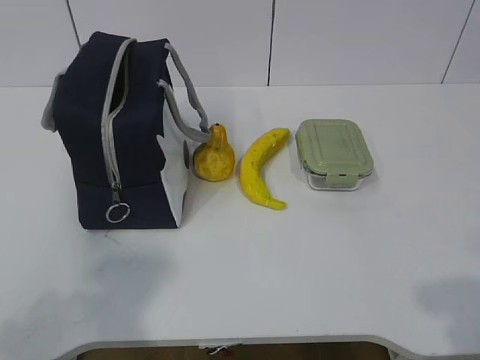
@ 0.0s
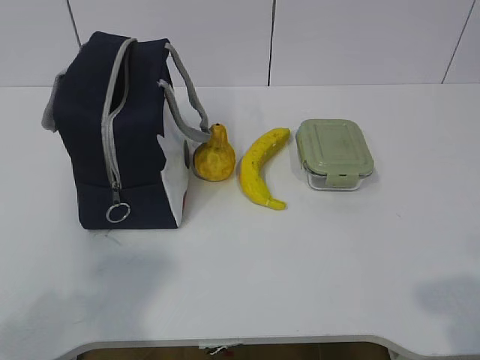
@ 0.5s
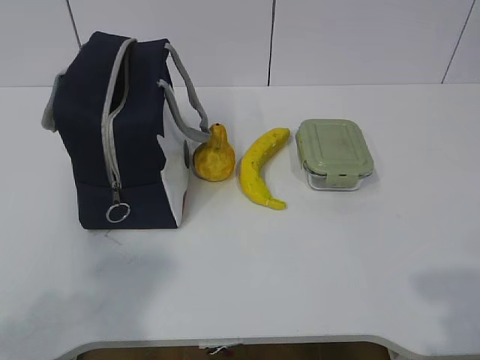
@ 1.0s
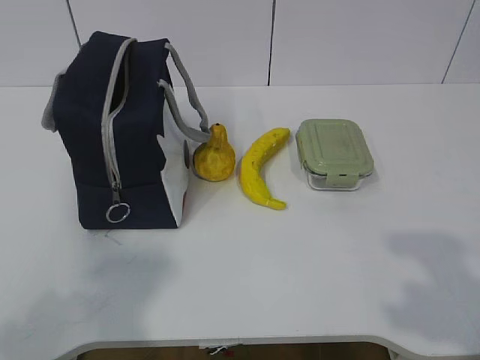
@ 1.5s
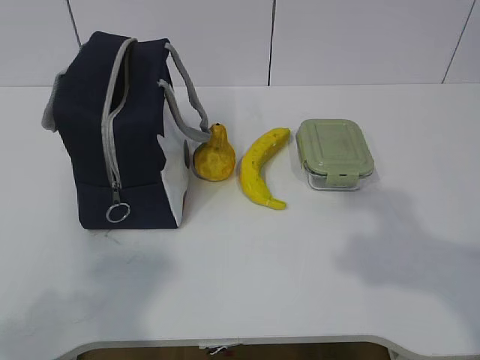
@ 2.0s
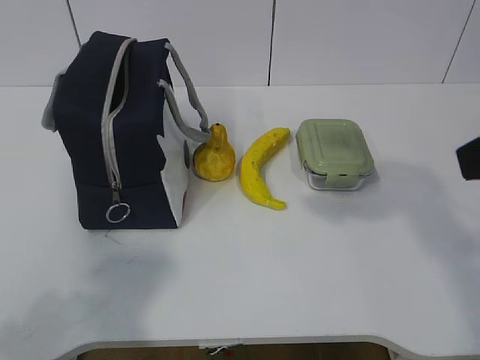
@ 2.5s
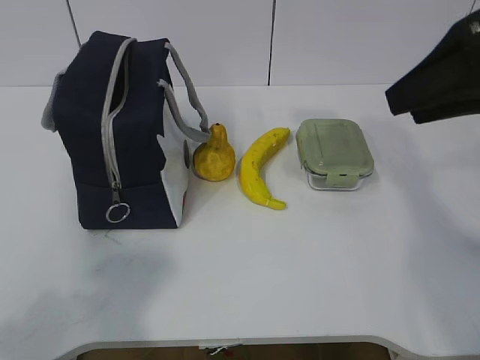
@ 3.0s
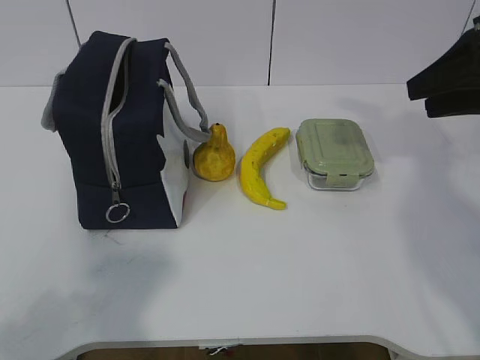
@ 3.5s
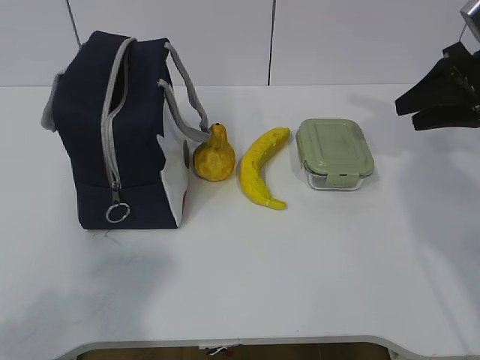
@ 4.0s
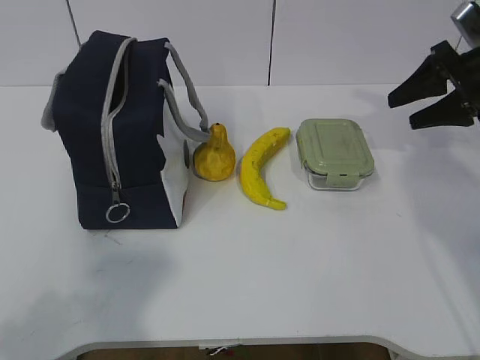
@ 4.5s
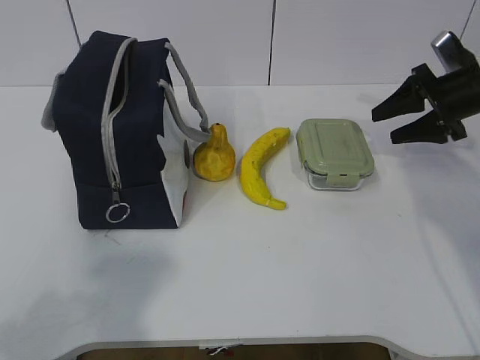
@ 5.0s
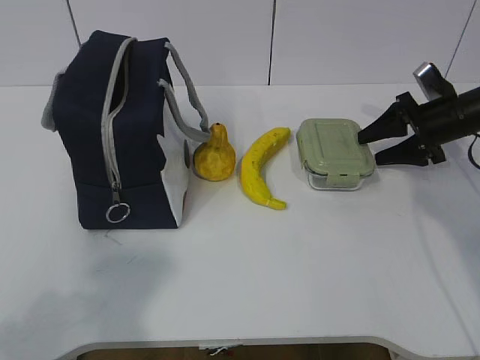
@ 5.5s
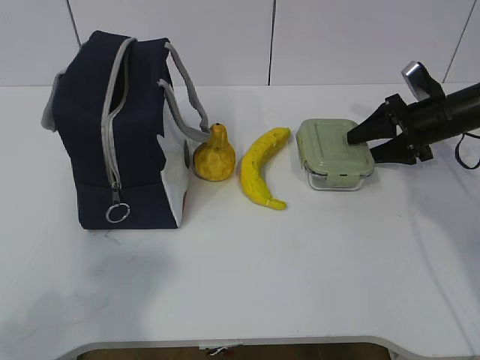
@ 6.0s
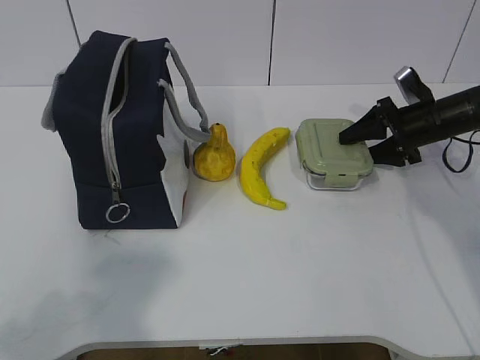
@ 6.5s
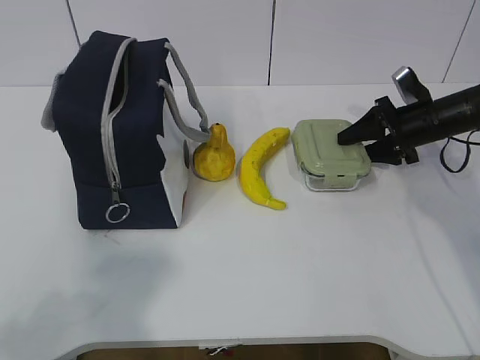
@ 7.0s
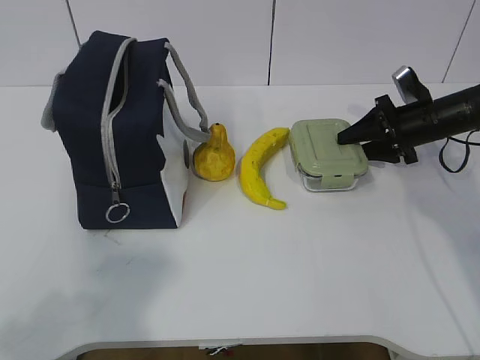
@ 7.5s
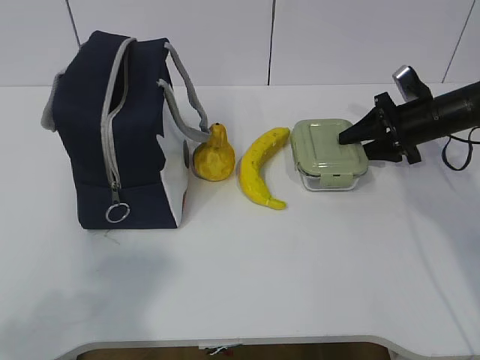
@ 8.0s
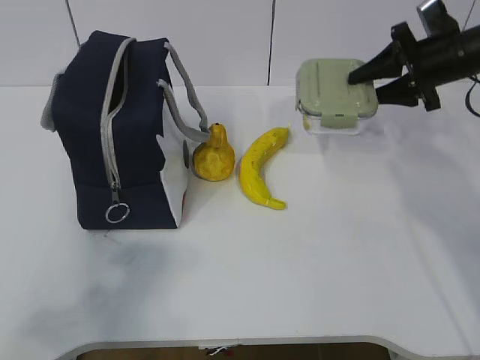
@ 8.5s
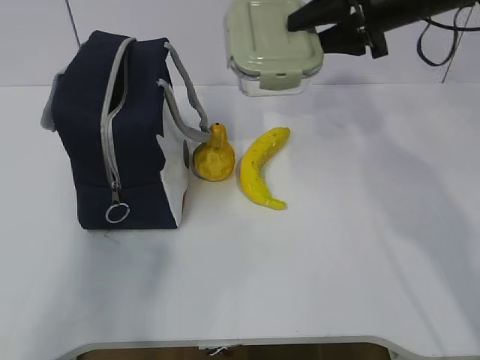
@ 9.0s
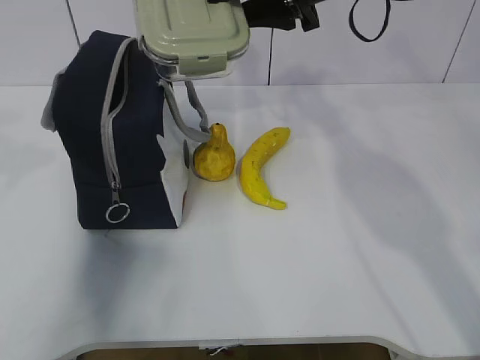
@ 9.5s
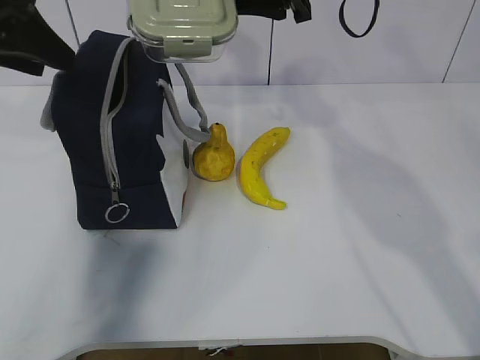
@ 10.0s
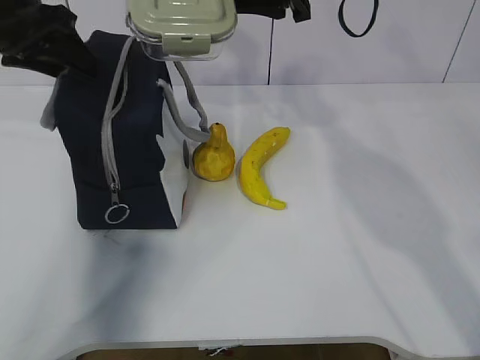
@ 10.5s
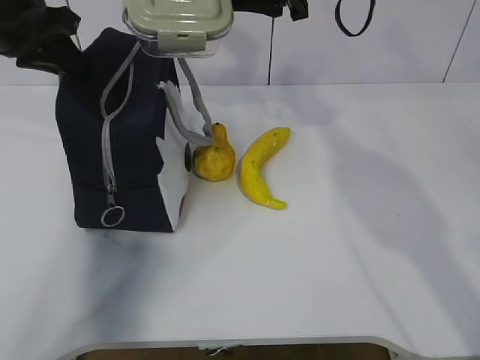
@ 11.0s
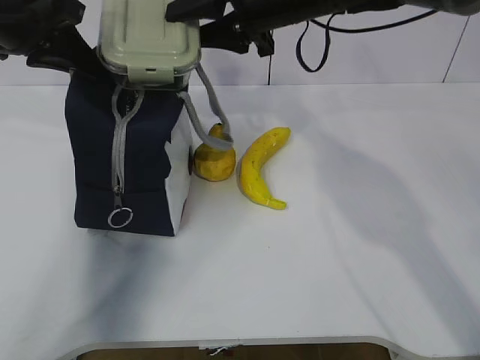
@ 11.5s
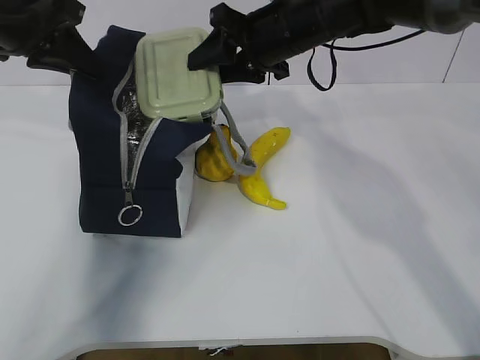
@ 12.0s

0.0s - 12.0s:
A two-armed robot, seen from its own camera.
Step, 0.0s - 6.0s: Grab the lunch box with your right hand.
Step, 7.0s - 9.5s: Grab the lunch bag with your left hand.
2.0s - 4.0s: The right gripper goes approximately 30 cm forward.
4.0s - 6.0s: The right gripper goes some 15 cm downward and forward.
6.0s - 8.0s: There are only small adjustments of the grippers.
8.0s - 10.0s: The left gripper shifts about 30 cm forward, and opens its fingers. Meanwhile the right gripper heads upward and to the left, covering some 30 cm.
10.0s - 12.0s: The right gripper travels downward by approximately 10 cm, while the left gripper is displaced forward by approximately 5 cm, and closes.

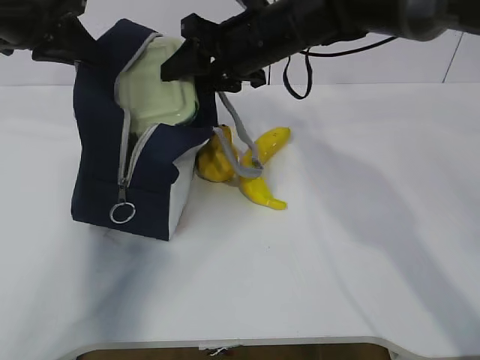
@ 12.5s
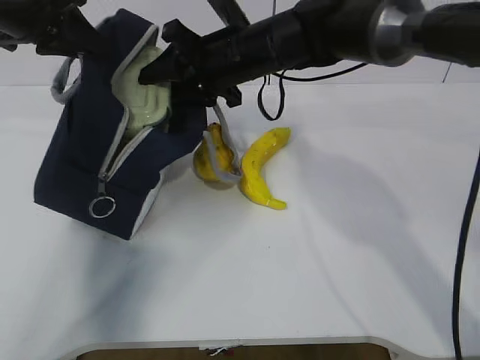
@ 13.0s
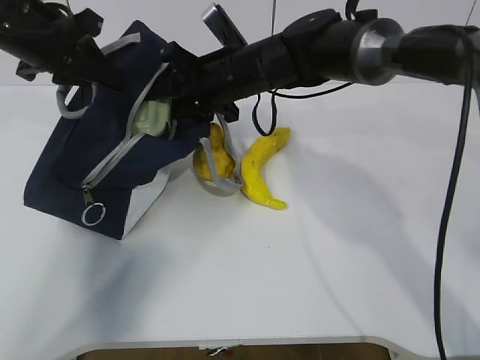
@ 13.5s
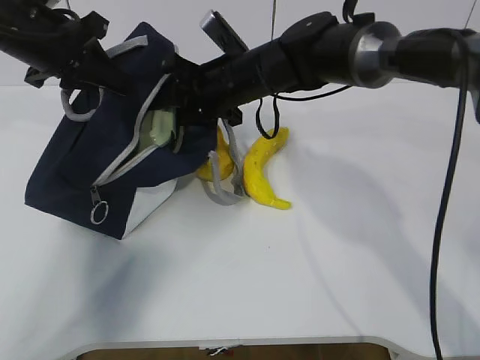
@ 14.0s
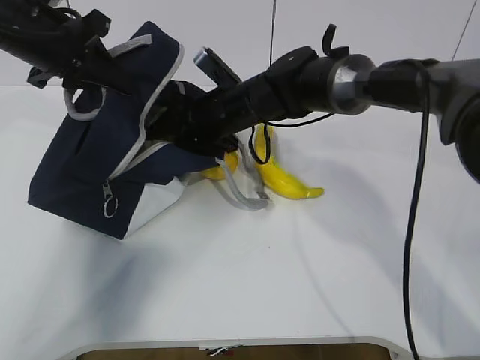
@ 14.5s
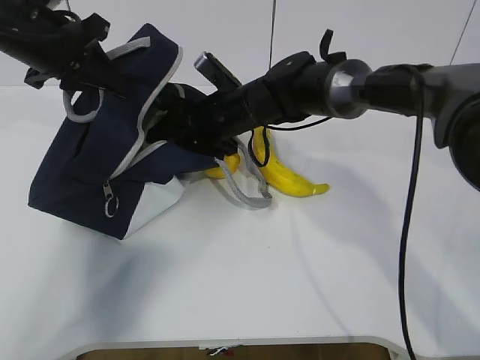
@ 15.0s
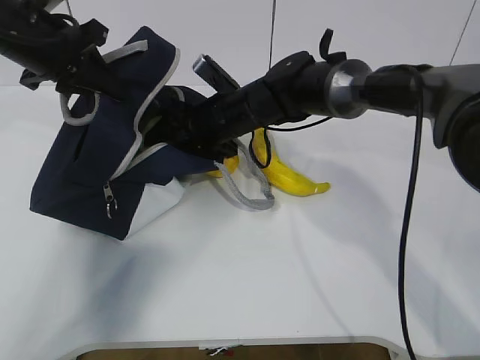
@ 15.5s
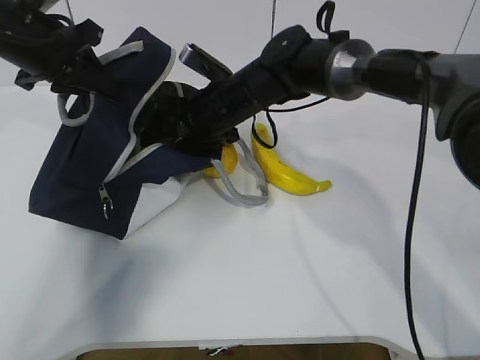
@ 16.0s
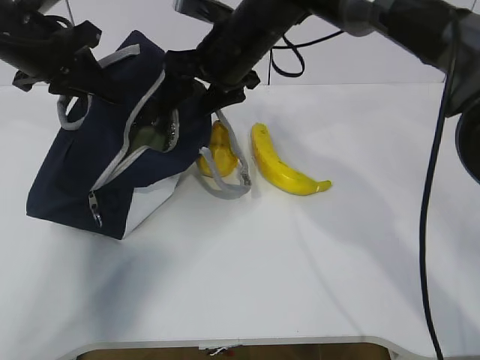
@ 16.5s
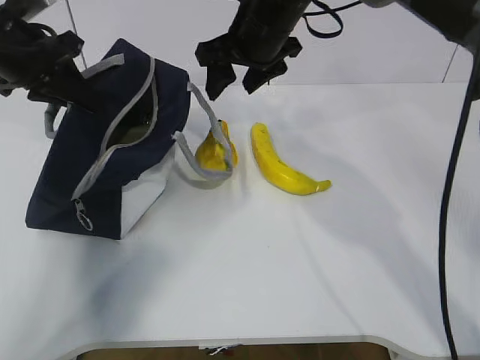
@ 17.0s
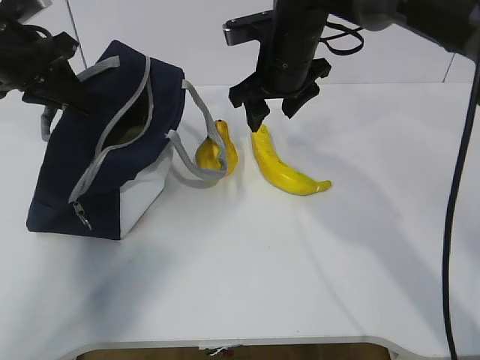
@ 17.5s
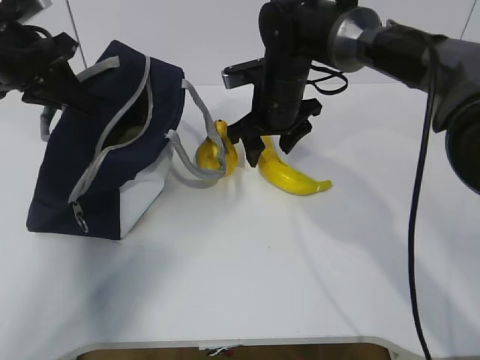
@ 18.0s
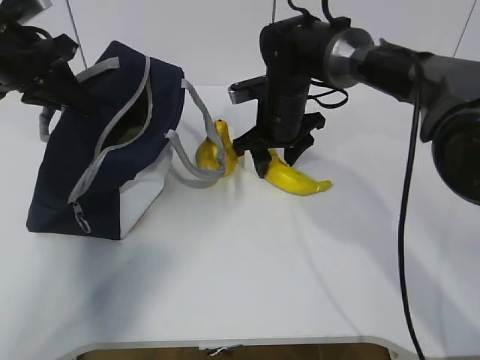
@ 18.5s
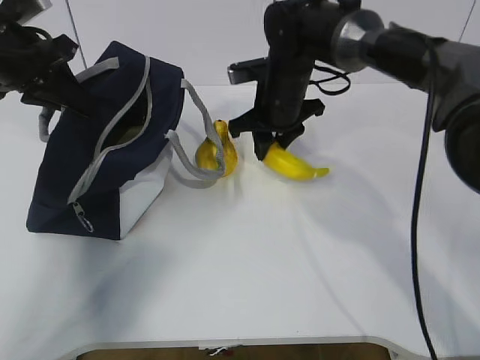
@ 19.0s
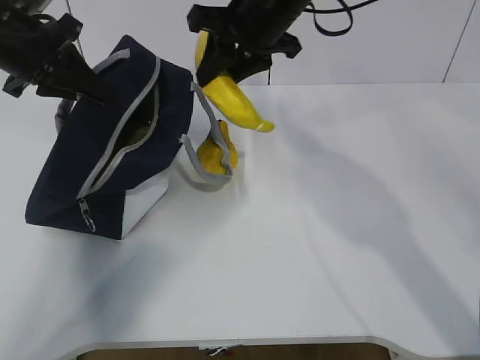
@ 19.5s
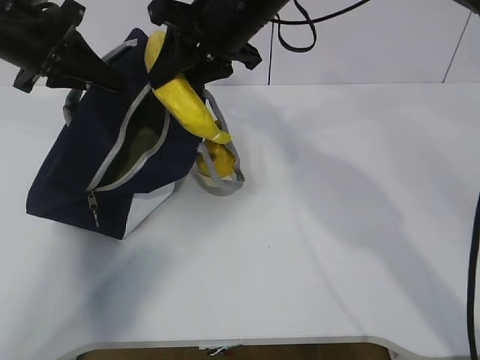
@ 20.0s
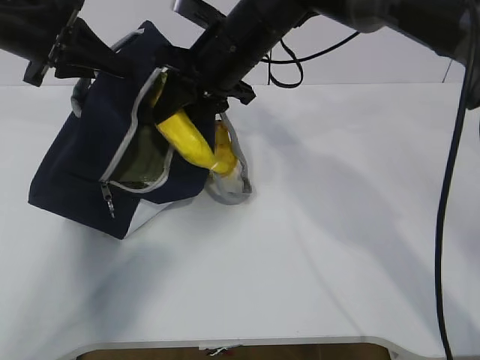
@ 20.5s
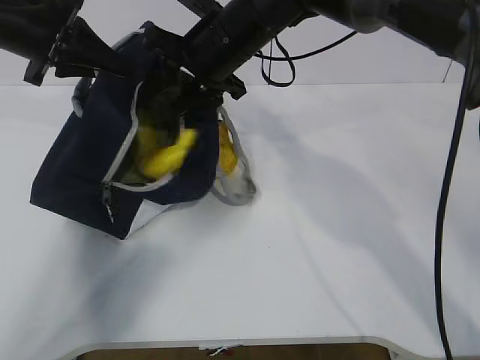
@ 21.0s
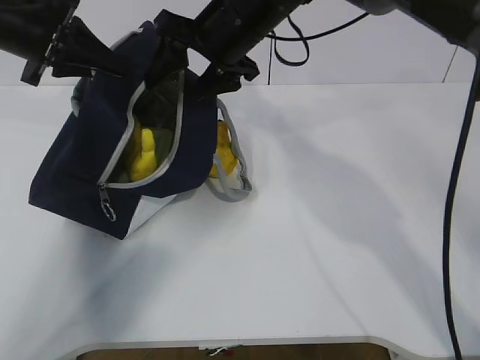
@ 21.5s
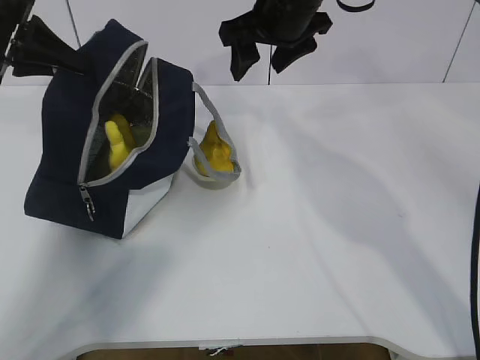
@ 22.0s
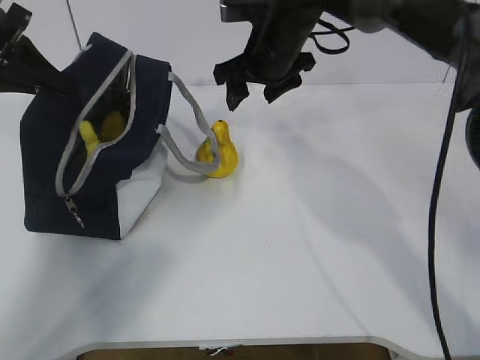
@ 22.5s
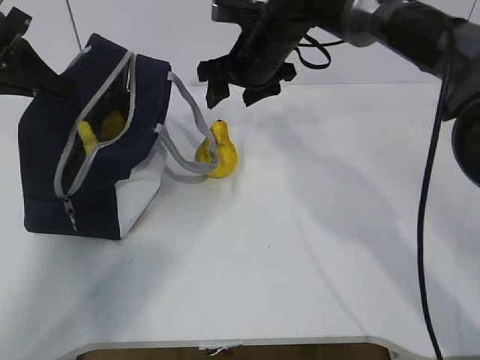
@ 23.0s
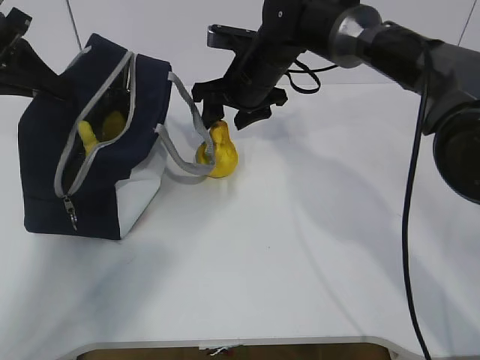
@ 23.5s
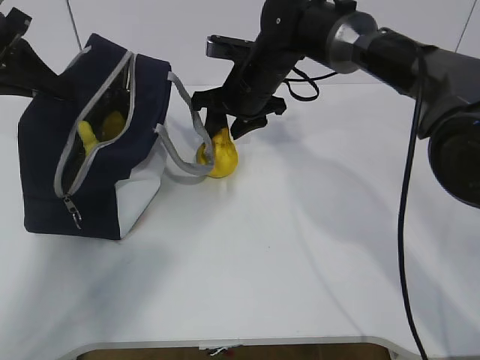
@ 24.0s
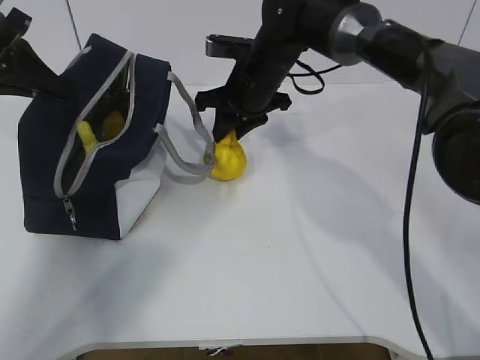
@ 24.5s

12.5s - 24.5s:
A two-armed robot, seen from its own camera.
Step, 13.5s - 15.5s: Grab the banana with your right hand.
Step, 16.0s - 17.5s: Place it into the bag with your right hand.
Step, 18.0s - 20.0s: Grab the pear with your right hand.
Step, 22.0s - 23.0s: Grab the lunch bag with your right hand.
12.5s - 14.5s: The right gripper heads downward, covering approximately 10 cm.
14.5s - 16.5s: The right gripper travels upward by about 10 cm, and opens.
16.5s - 18.5s: The right gripper shifts approximately 10 cm downward and to the right.
18.5s - 20.5s: The right gripper shifts some 10 cm upward and to the left, and closes up.
20.5s - 22.5s: The right gripper travels to the right by some 5 cm, and opens its fingers. The left gripper moves to the left, approximately 5 cm.
22.5s - 24.5s: The right gripper shifts by some 5 cm, and closes.

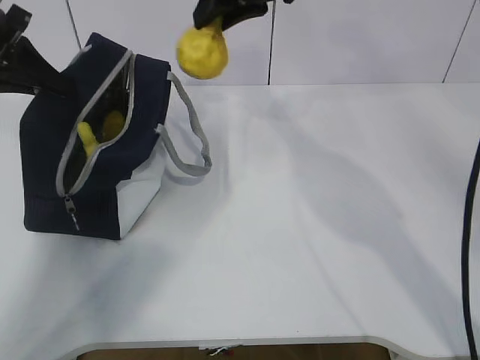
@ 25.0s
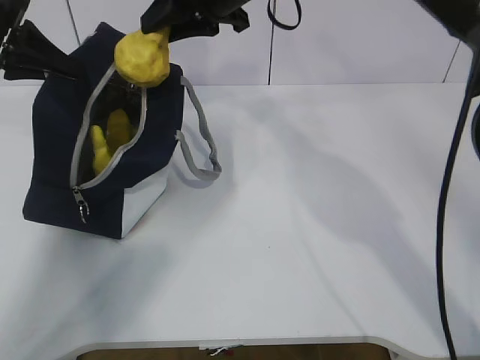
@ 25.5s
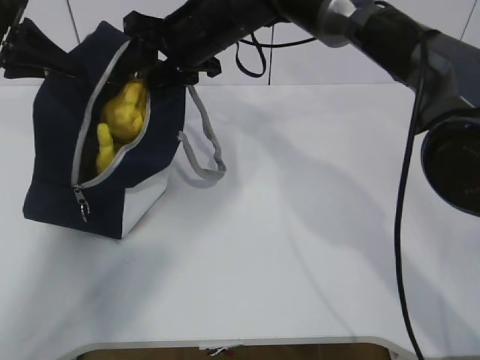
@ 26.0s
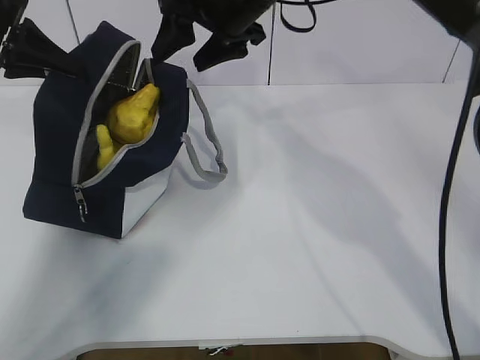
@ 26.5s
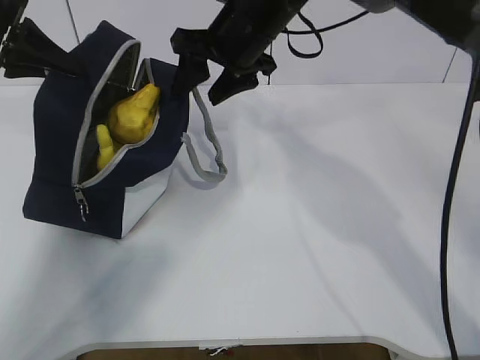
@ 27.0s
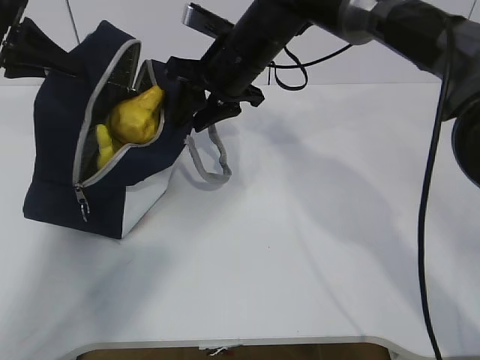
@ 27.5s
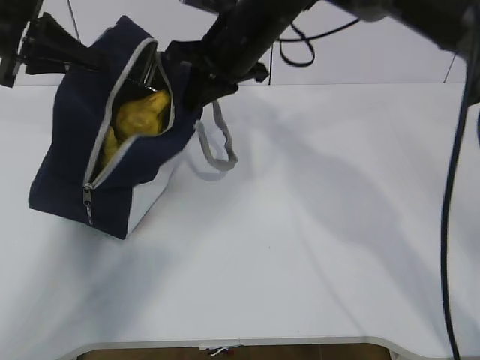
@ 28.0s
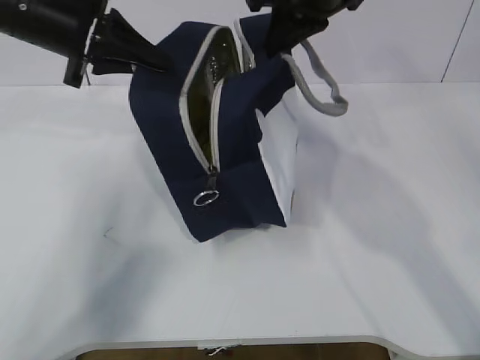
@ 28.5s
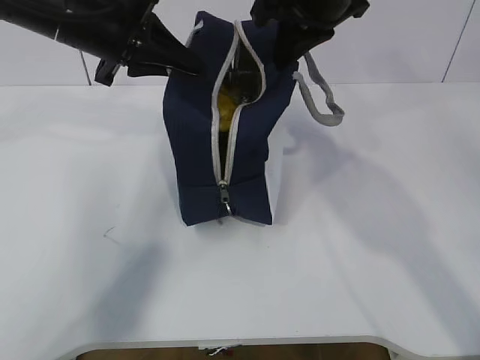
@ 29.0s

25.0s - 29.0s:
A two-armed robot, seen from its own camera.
25.0s - 27.0s: The right gripper goes approximately 5 cm downward, and opens.
27.0s - 29.0s: The right gripper heads to the right and upward, covering approximately 10 cm, and closes up, while the left gripper heads to the right, covering approximately 15 cm.
